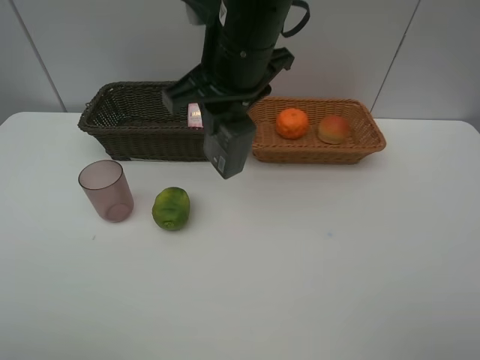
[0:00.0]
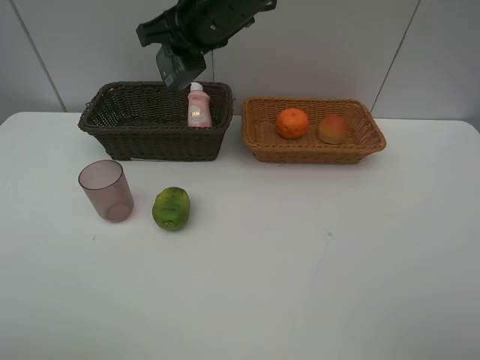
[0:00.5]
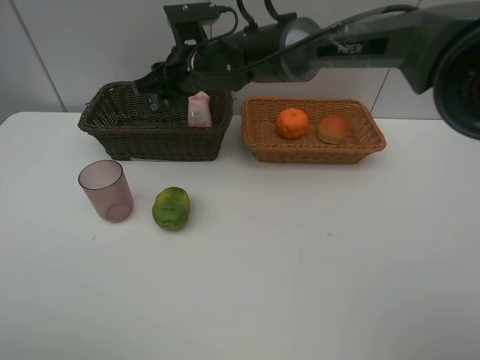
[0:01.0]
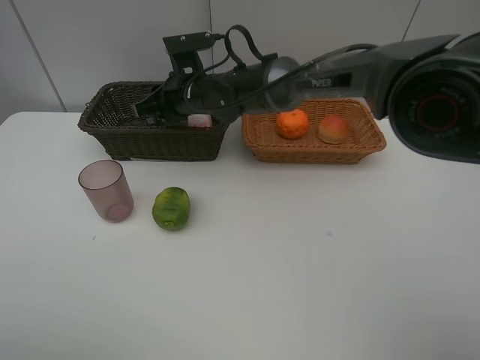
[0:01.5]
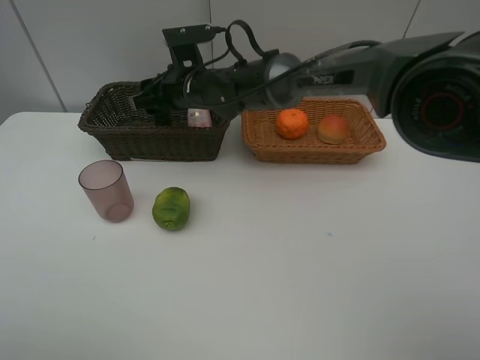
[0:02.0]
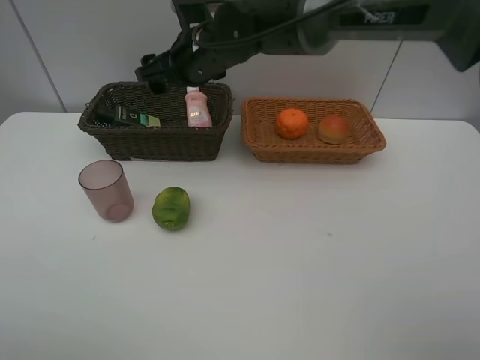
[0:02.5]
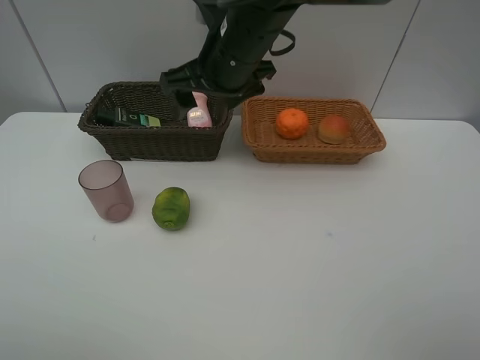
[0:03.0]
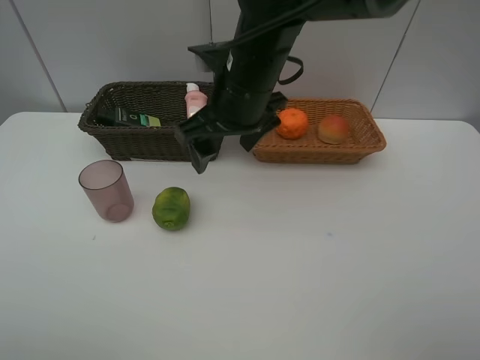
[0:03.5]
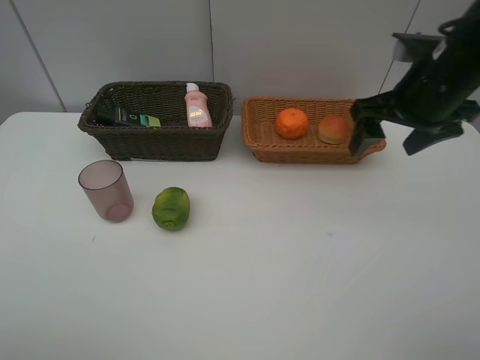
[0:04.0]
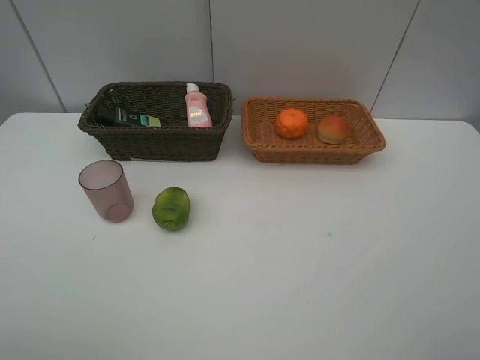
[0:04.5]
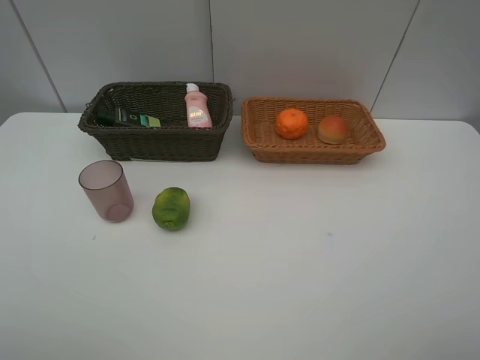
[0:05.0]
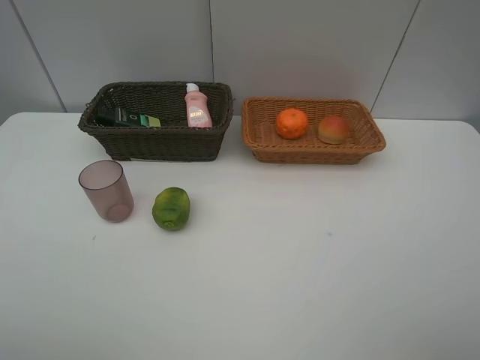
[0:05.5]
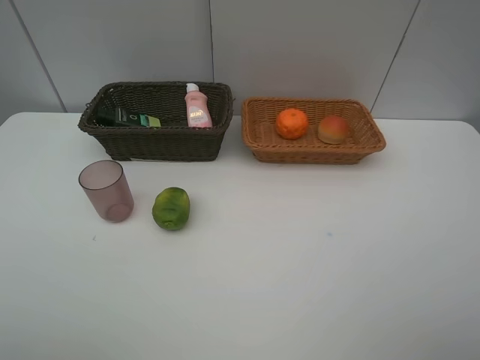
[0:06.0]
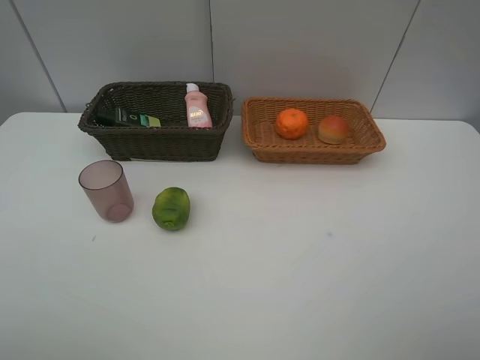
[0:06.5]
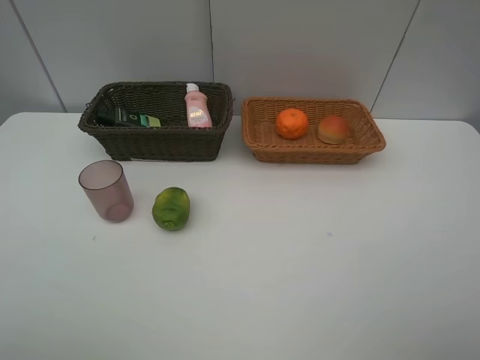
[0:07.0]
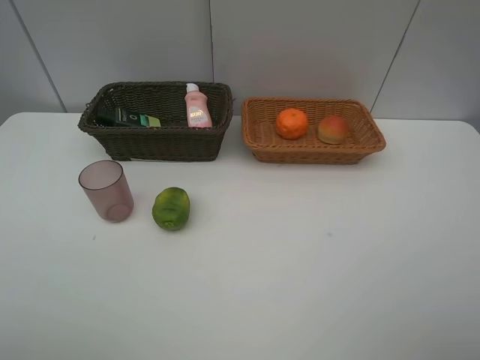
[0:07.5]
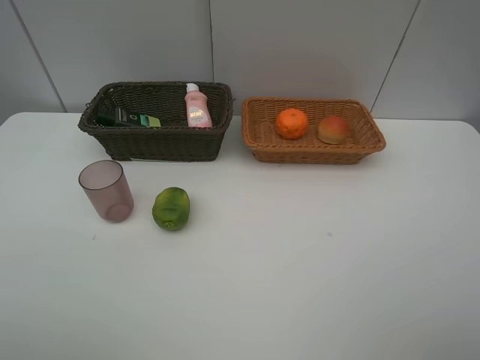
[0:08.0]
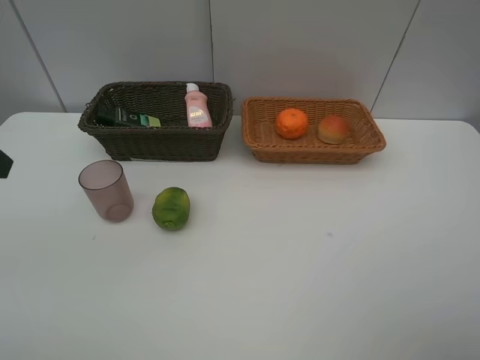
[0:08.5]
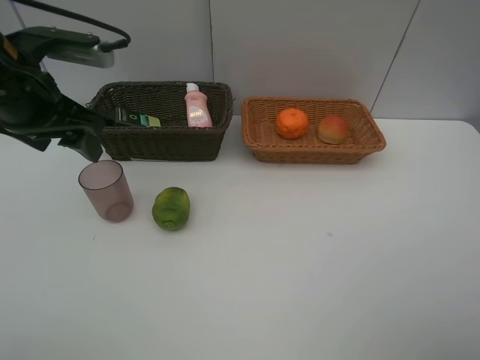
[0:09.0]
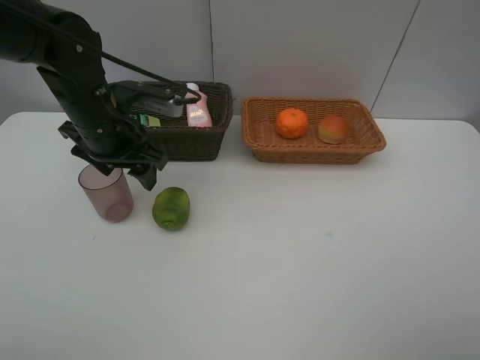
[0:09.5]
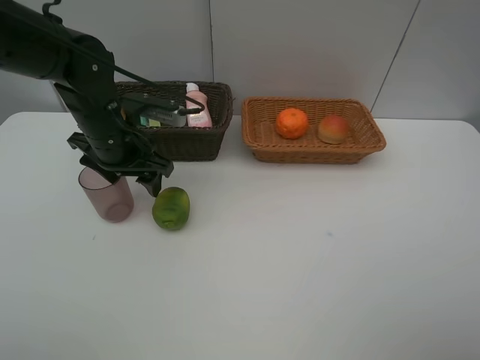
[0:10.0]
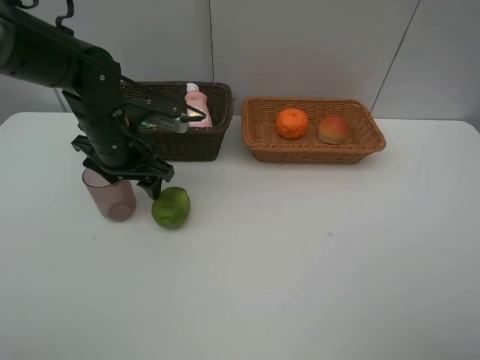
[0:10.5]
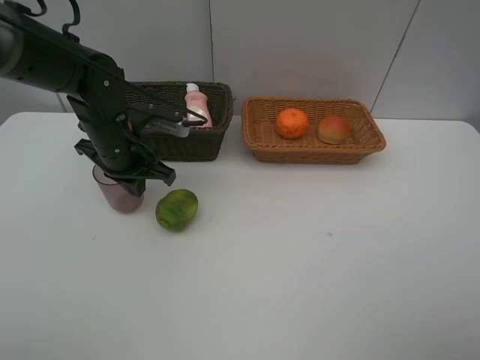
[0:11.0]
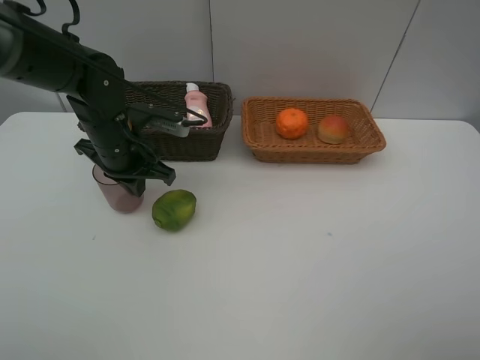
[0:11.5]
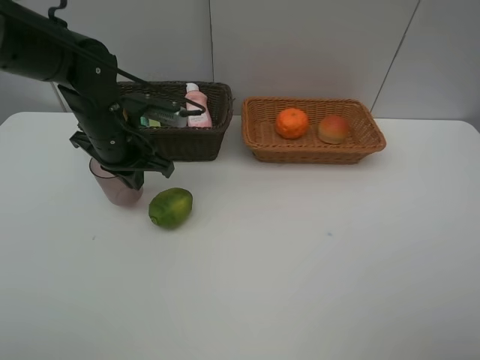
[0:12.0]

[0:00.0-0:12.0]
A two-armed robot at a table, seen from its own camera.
Task of the whole recording: place multiple objects separately in different baskets.
0:00.0 to 0:02.0: The right gripper moves downward, forward and to the left, some 20 cm, and opens up.
0:02.0 to 0:04.0: The right gripper heads to the right and backward, covering some 35 cm.
0:04.0 to 0:06.0: The right gripper shifts some 30 cm backward.
0:08.0 to 0:10.0: The left gripper is displaced forward, to the right and downward by approximately 35 cm.
0:10.0 to 0:12.0: The left gripper closes.

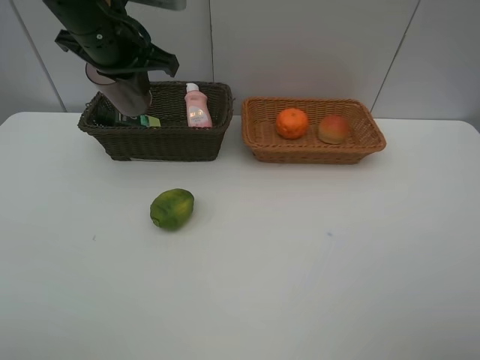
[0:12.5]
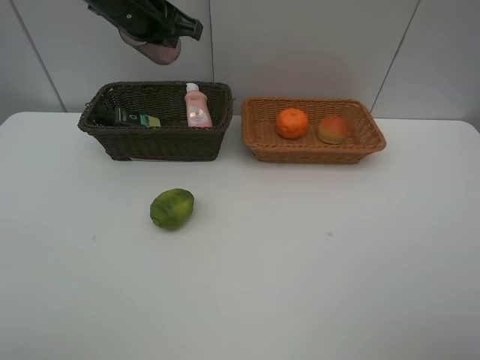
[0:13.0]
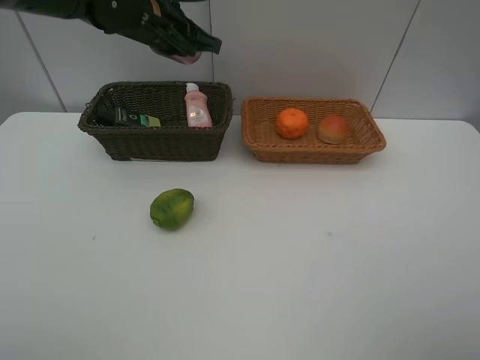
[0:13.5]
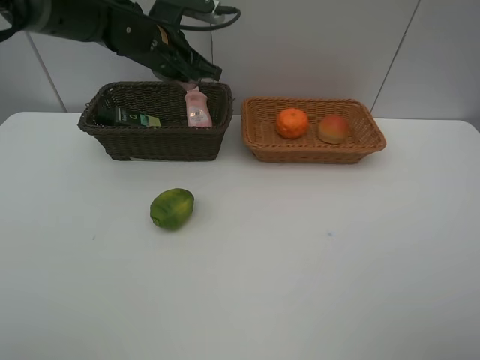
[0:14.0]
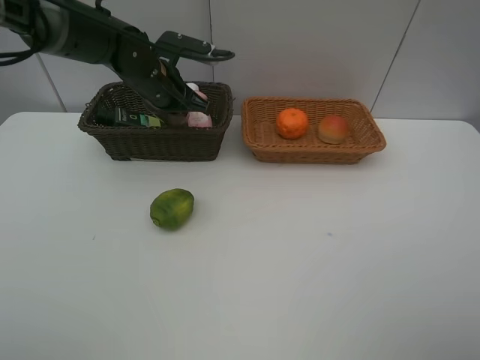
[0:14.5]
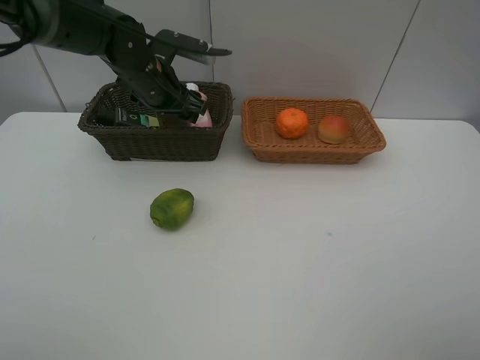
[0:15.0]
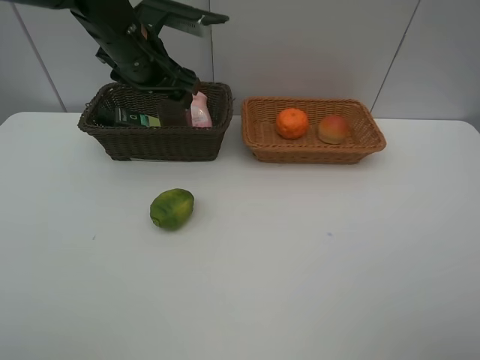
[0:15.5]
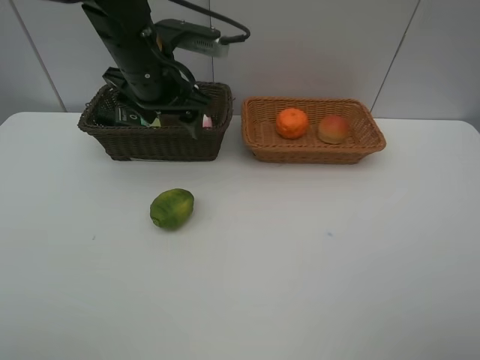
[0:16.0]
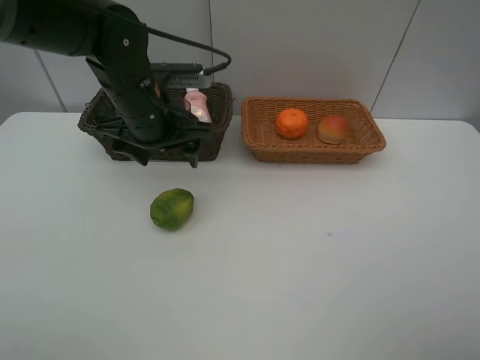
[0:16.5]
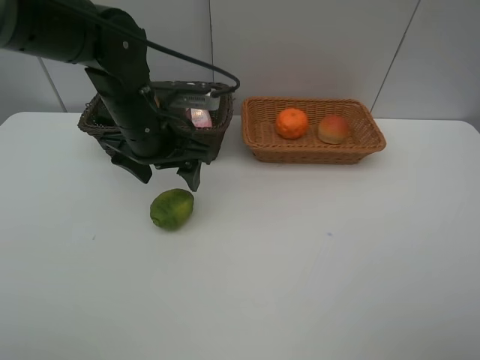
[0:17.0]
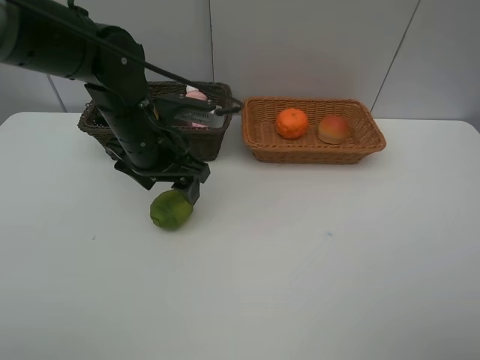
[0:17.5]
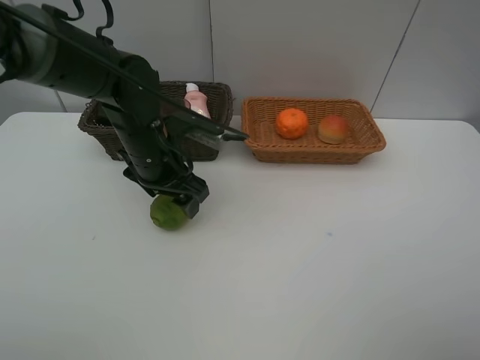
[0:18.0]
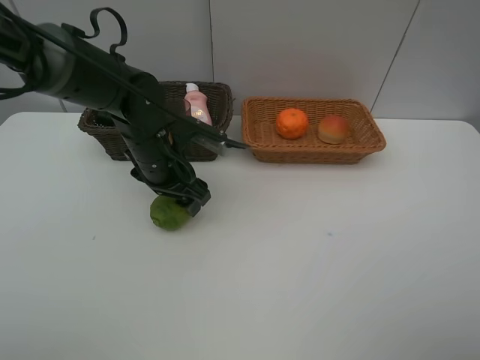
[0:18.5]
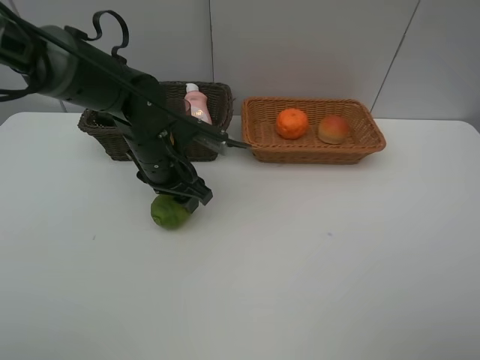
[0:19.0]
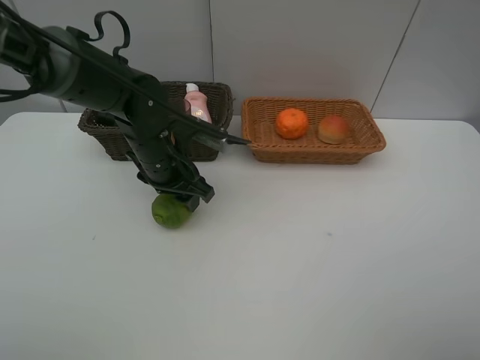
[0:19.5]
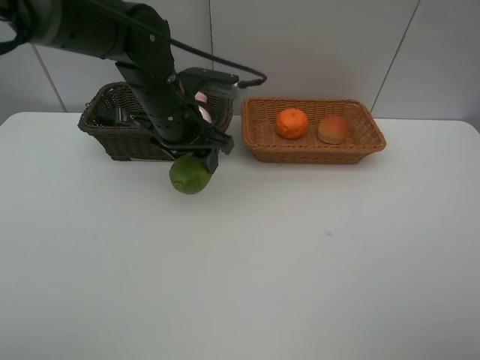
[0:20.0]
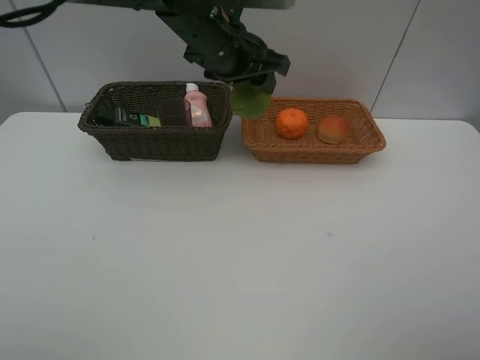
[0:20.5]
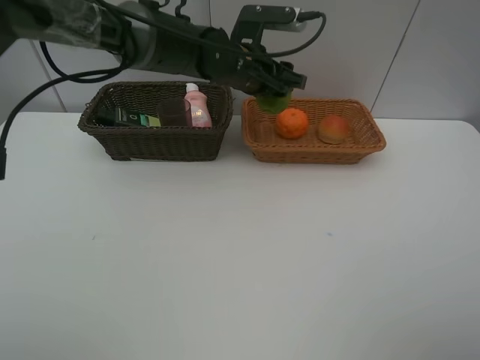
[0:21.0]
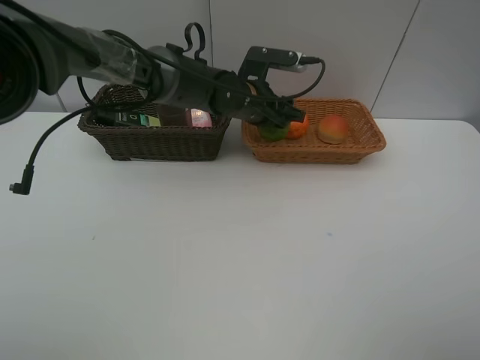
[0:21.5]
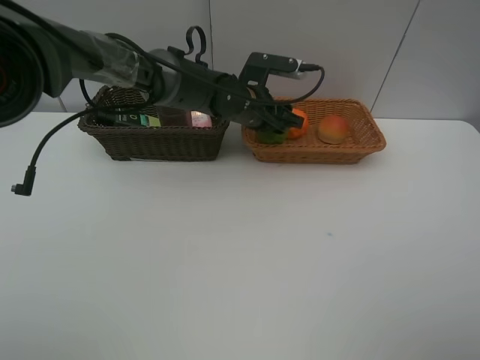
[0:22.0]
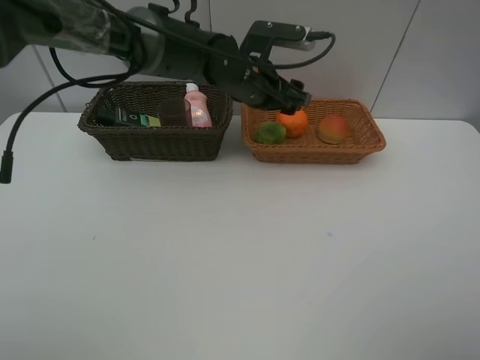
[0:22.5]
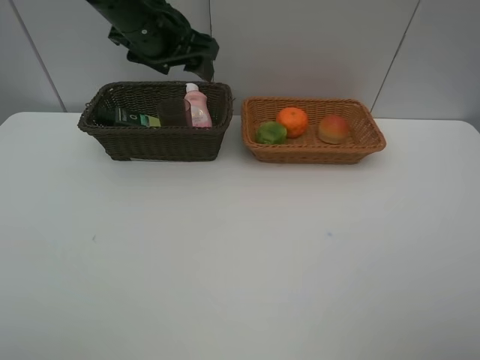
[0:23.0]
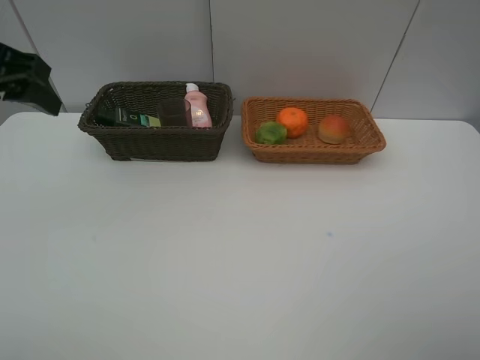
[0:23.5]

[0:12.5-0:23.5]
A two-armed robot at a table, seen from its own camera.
Task of the whole recording: place multiple objects separately in different baskets.
0:12.5 to 0:14.5: The left gripper travels downward and forward by approximately 15 cm.
0:14.5 to 0:16.0: The left gripper heads backward and upward, covering approximately 10 cm, and opens up.
0:16.0 to 0:18.0: The left gripper goes roughly 10 cm downward.
0:18.0 to 0:20.0: The left gripper moves upward, about 5 cm.
0:20.0 to 0:21.5: The left gripper travels to the right, forward and downward by about 15 cm.
0:21.5 to 0:23.5: The left gripper travels to the left, backward and upward by approximately 40 cm.

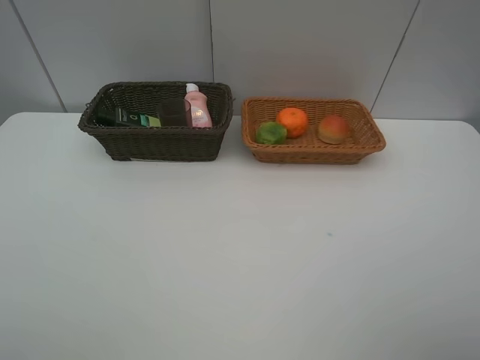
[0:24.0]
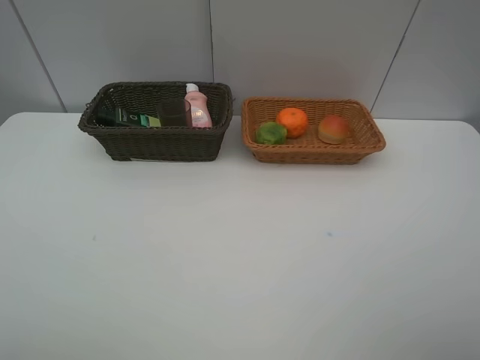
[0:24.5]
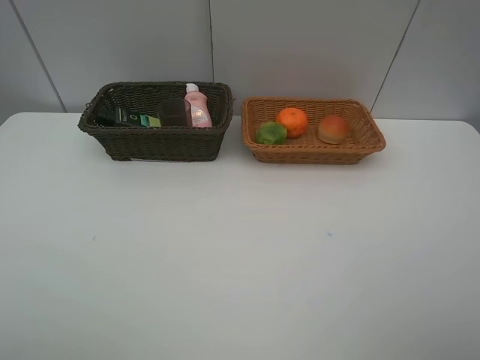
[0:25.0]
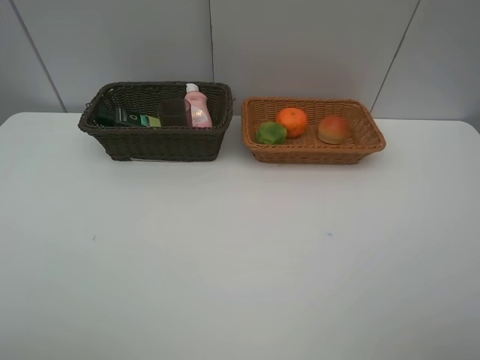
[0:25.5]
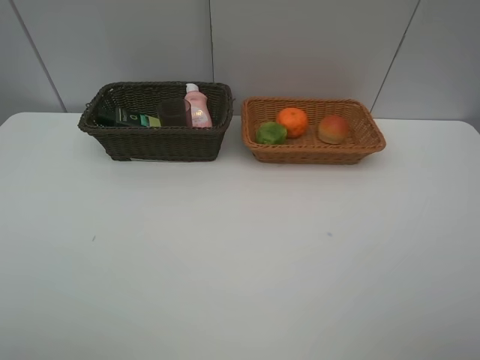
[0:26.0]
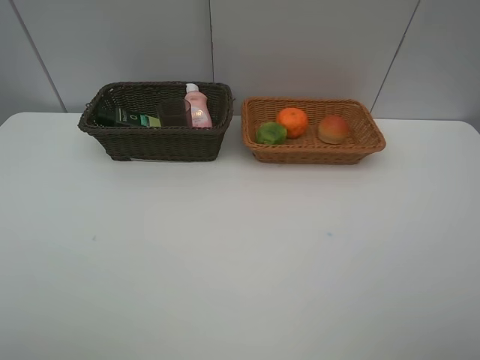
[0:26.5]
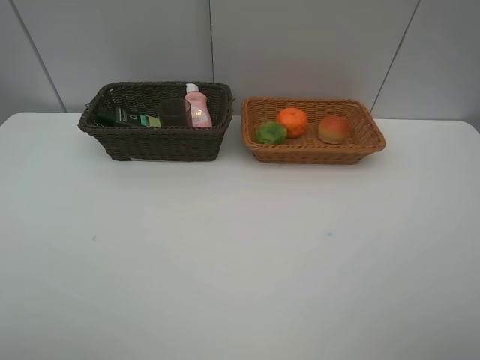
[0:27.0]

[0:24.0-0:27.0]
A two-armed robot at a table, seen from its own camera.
Task of the whole recording: place multiple objects separately in different baskets.
0:25.5 to 0:27.0: Neither gripper changes place.
